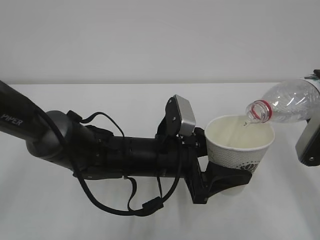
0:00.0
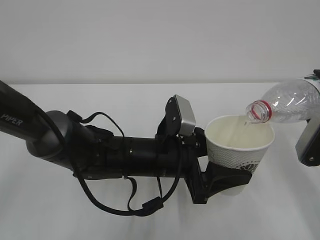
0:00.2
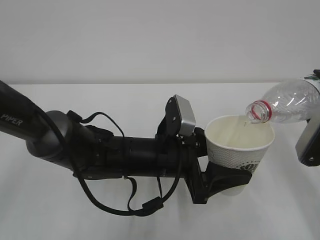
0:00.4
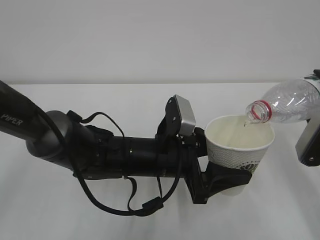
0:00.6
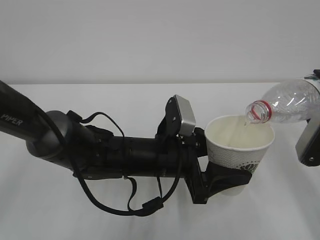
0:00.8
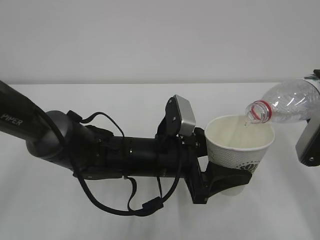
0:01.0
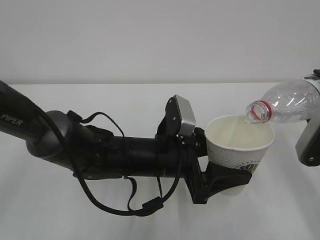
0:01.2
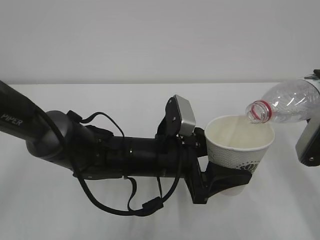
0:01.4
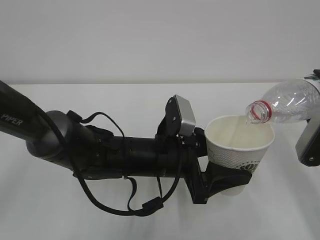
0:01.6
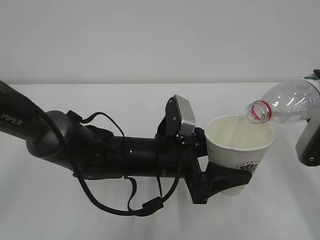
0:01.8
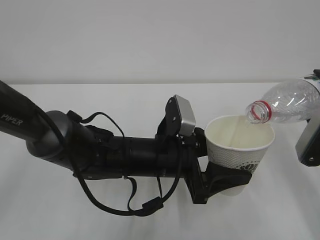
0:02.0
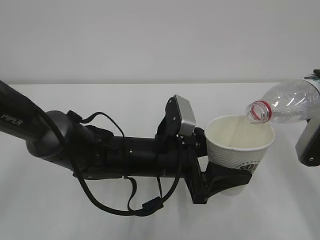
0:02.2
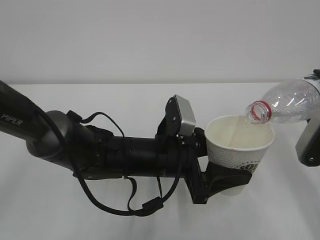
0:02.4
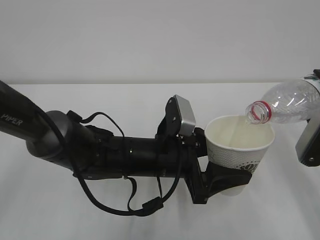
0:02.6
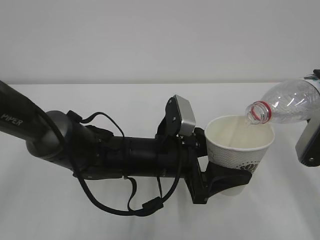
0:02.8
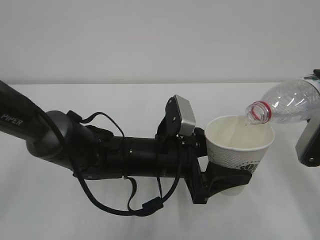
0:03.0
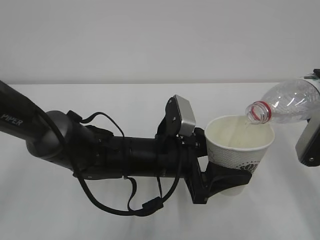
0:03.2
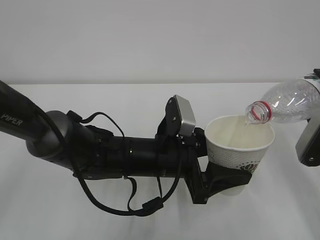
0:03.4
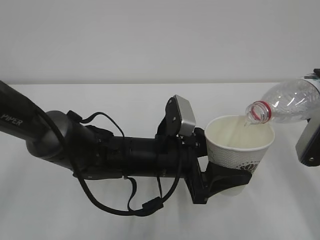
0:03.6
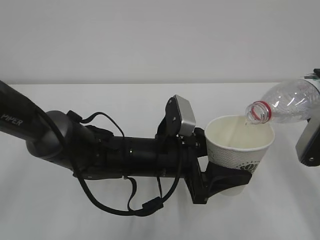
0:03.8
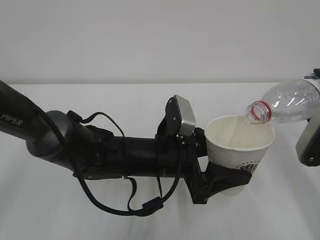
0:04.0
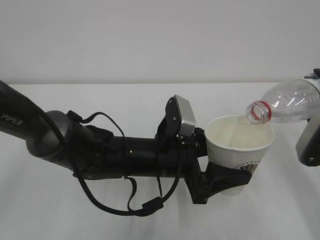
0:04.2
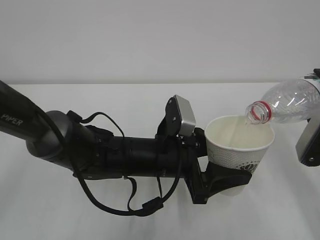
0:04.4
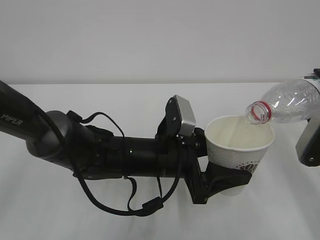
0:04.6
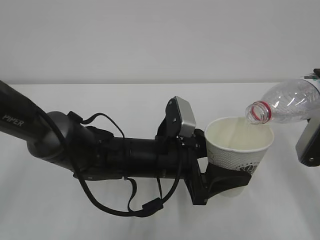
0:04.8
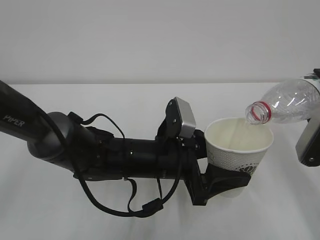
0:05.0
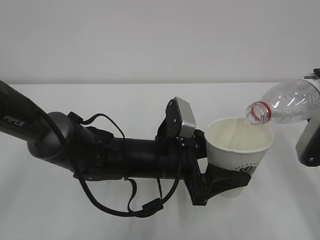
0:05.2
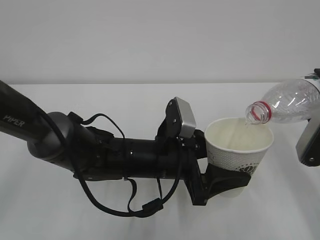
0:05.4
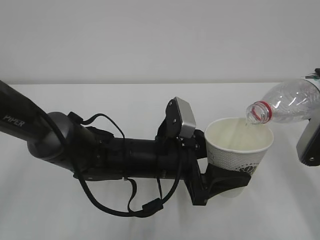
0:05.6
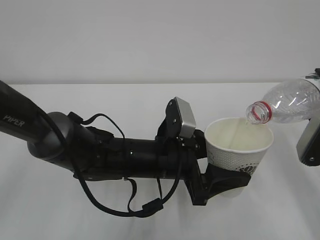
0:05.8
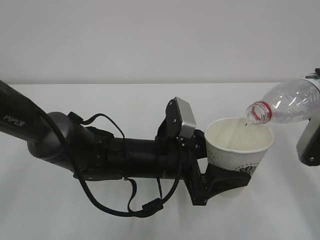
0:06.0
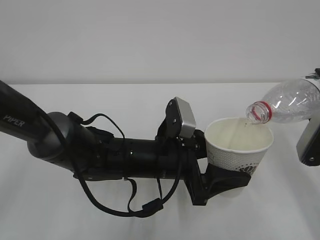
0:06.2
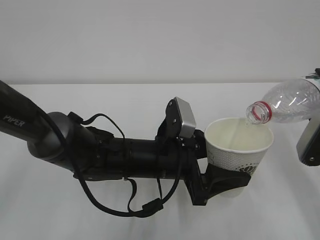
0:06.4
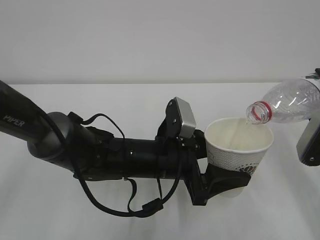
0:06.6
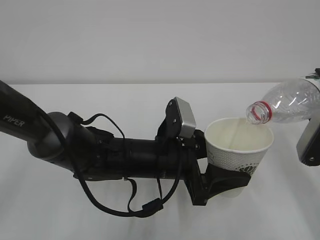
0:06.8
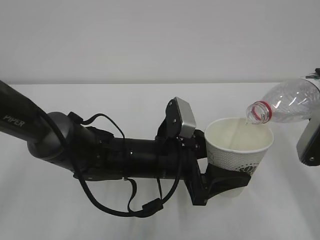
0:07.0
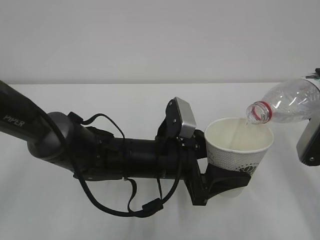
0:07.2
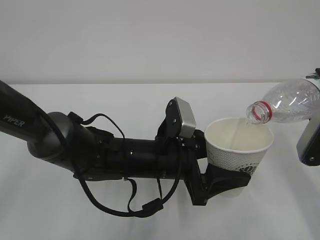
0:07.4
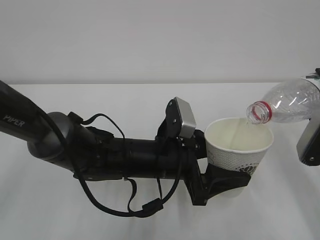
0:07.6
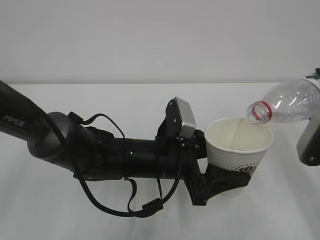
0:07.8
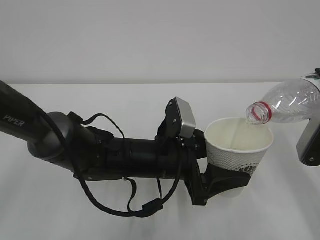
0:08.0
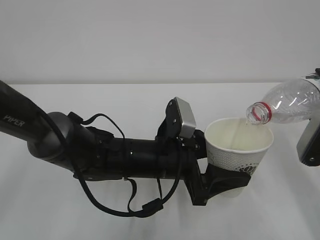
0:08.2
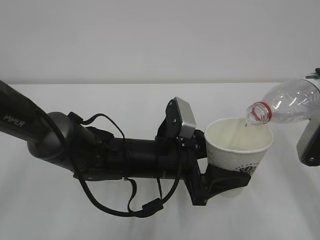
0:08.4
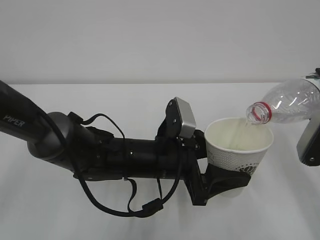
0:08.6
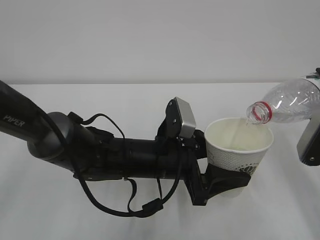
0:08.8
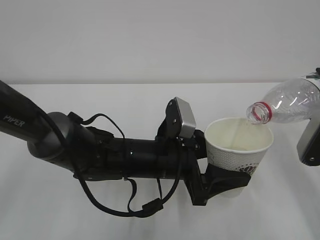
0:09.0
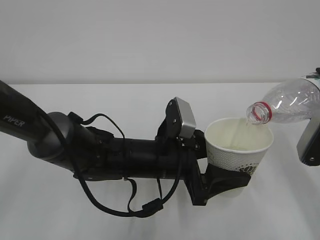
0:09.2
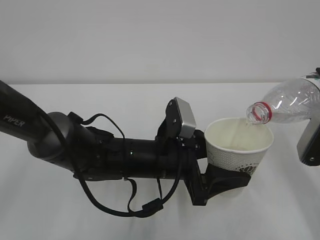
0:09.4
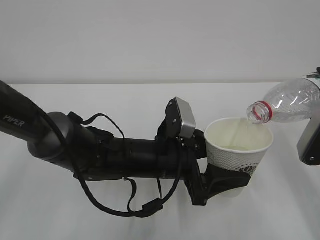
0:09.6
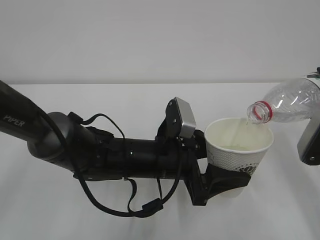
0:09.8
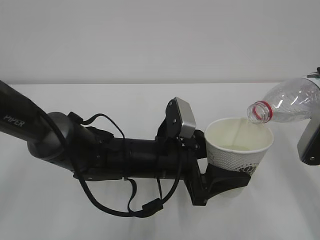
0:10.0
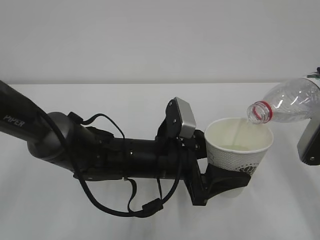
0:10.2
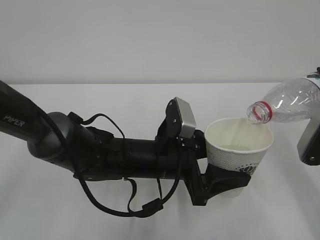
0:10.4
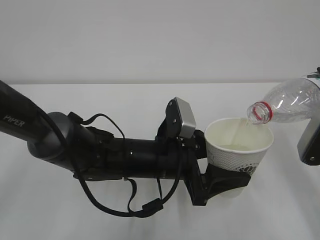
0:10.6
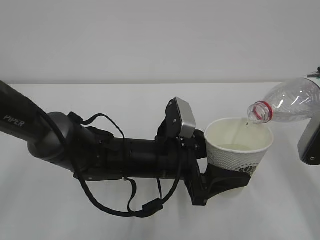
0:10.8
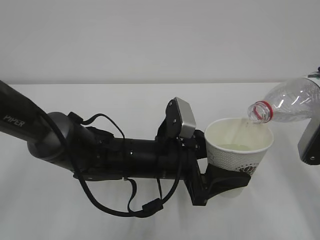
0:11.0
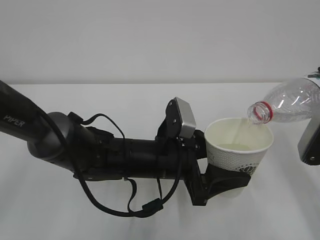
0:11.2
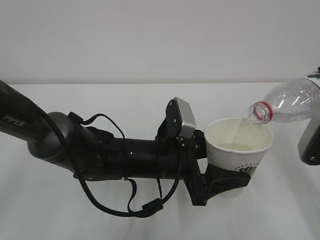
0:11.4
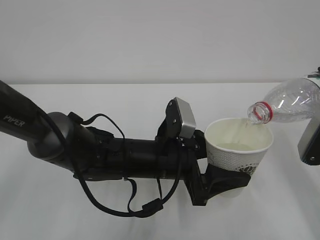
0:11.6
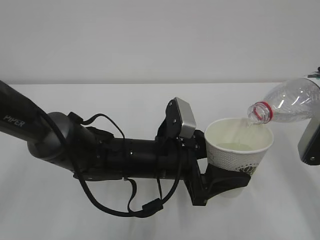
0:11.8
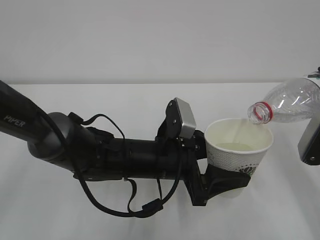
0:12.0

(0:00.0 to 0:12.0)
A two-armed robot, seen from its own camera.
0:00.0 - 0:10.4: Both grippers stay put.
0:10.4 - 0:12.0: Neither gripper changes place.

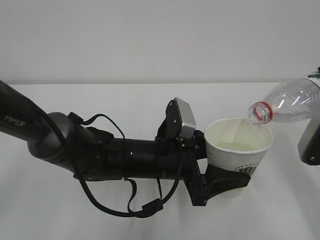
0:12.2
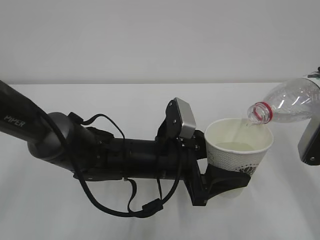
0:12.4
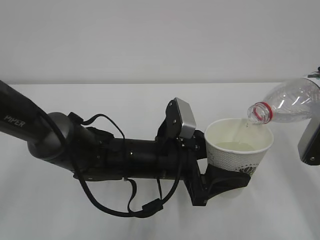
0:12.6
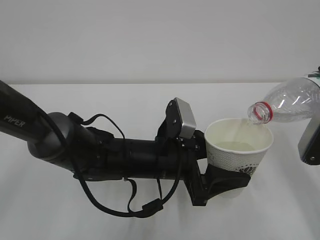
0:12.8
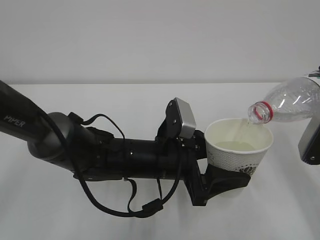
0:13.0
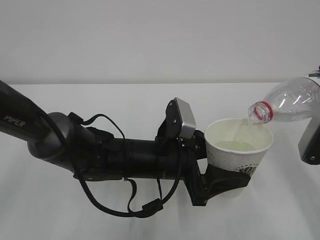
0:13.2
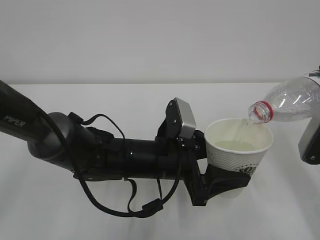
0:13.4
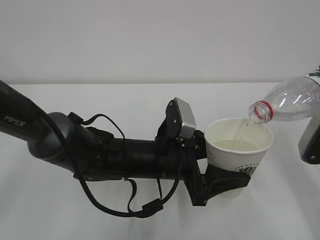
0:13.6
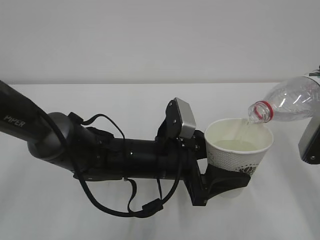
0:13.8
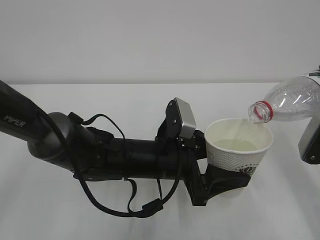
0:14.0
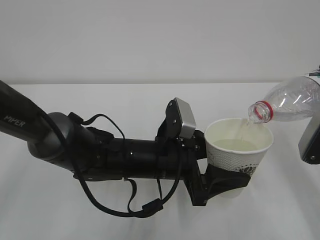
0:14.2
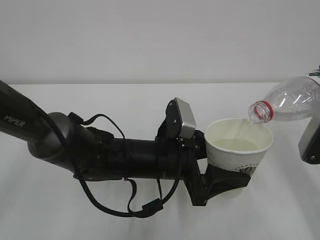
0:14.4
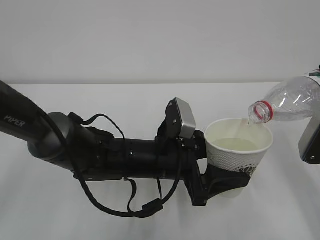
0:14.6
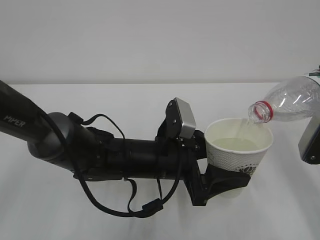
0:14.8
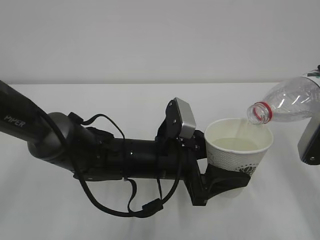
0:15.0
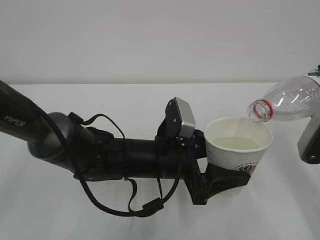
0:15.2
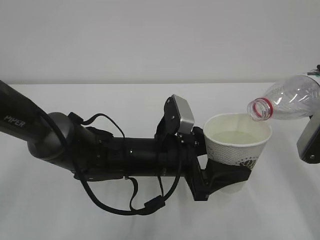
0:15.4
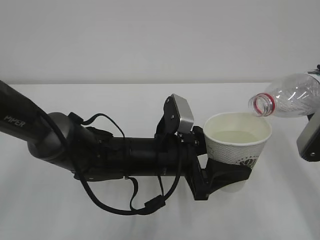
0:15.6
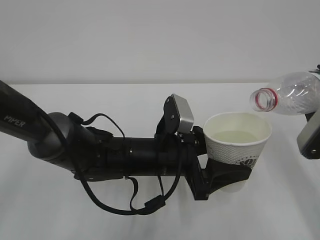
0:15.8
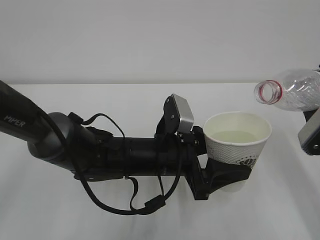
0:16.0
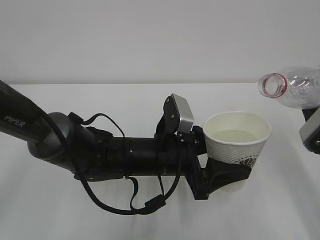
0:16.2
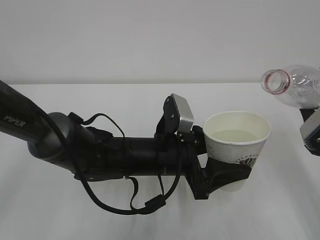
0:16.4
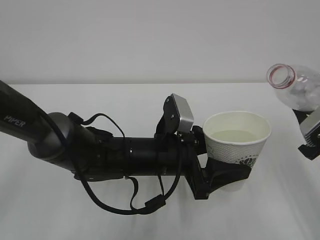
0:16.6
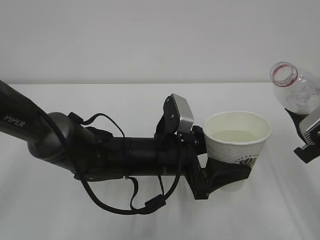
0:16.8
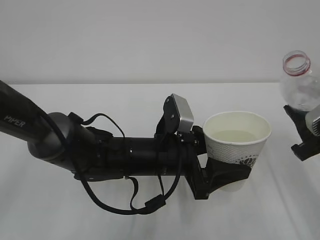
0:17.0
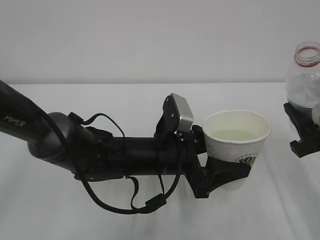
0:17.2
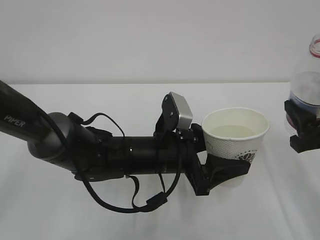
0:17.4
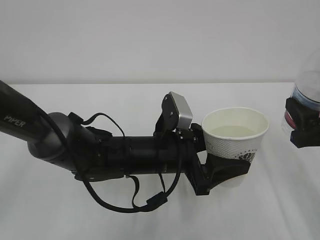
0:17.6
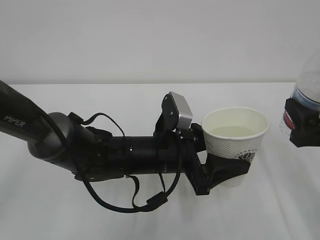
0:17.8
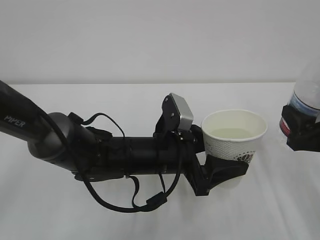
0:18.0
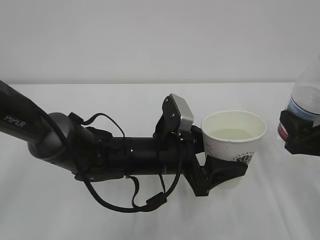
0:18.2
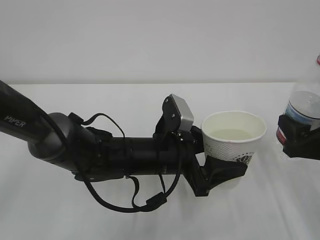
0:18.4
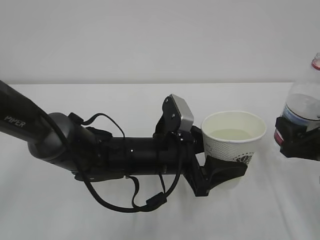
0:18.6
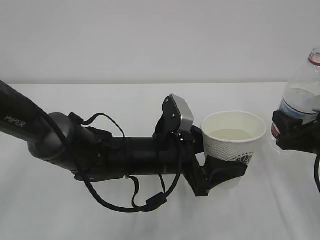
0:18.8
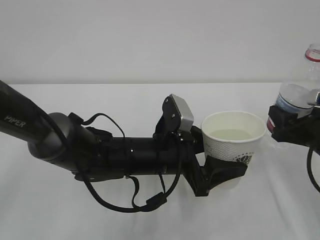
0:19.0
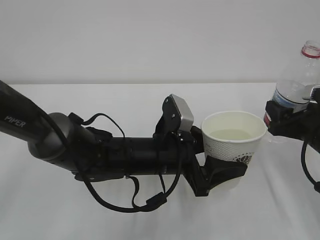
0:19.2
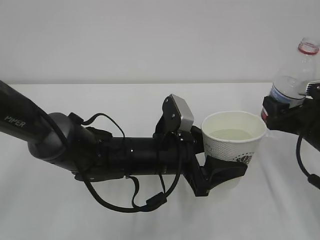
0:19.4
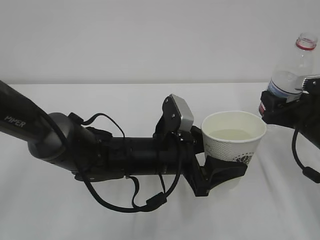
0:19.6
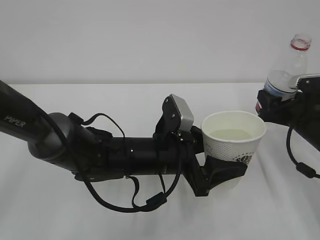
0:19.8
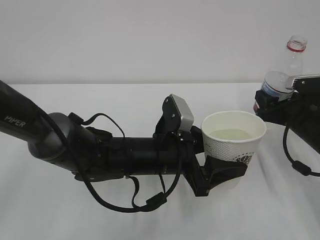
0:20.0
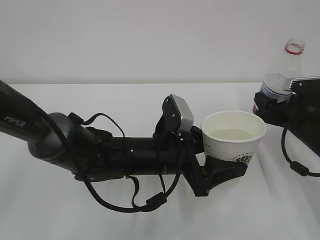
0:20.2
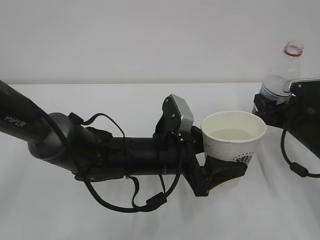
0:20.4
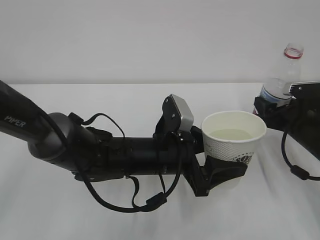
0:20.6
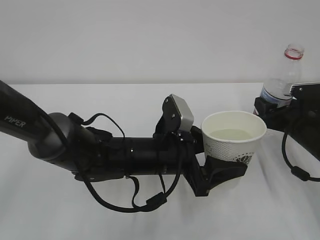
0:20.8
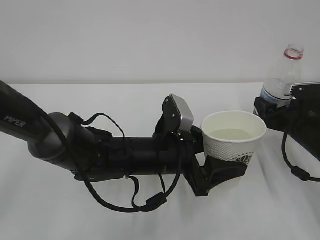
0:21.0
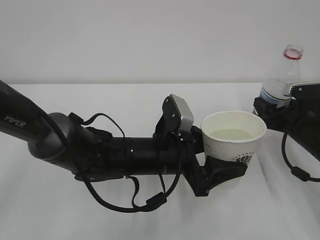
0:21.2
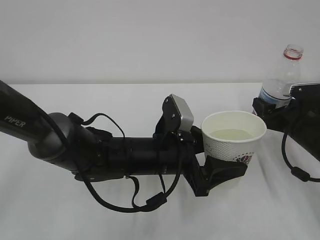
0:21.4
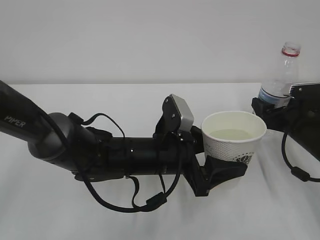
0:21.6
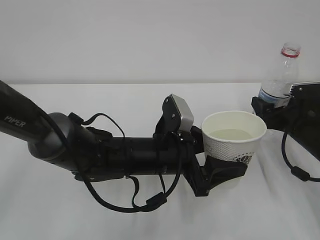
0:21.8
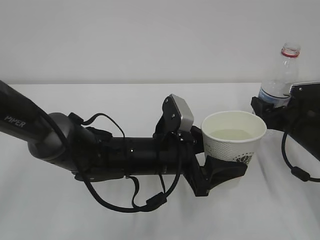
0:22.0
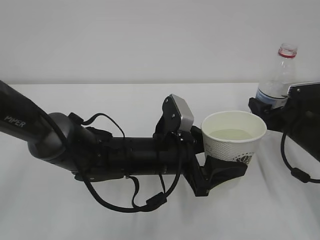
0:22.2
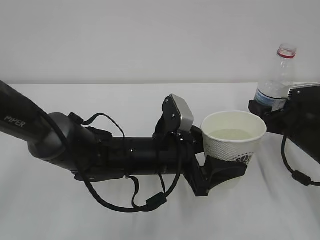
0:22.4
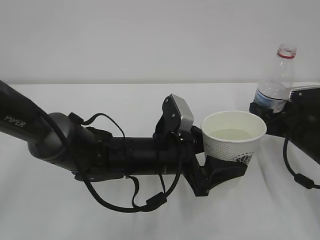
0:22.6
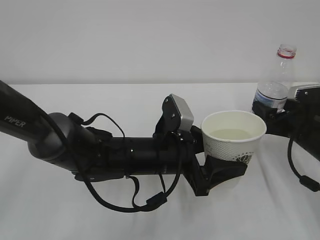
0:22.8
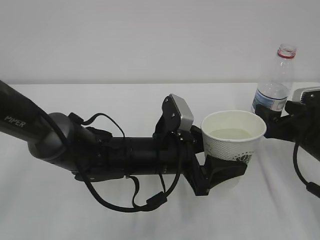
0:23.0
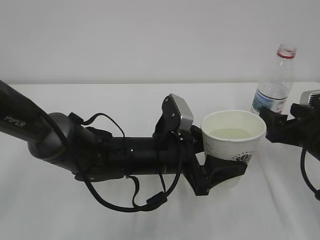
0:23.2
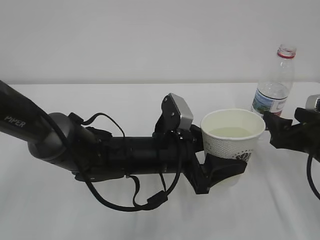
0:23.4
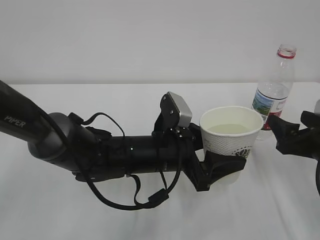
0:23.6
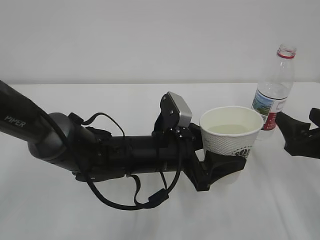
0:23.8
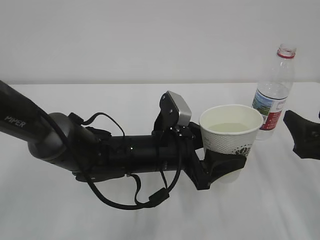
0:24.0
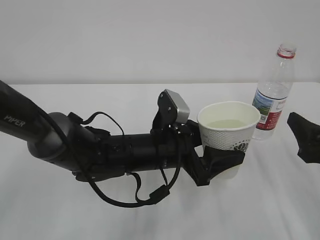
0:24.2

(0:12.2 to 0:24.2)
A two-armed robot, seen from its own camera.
0:12.2 - 0:15.2: Both grippers stay about where they are.
0:18.2 - 0:19.8: The right gripper goes approximately 10 cm forward.
0:19.8 - 0:21.2: The grippers stay close to where they were, moving slightly.
0:21.2 - 0:22.6: The right gripper opens up.
0:22.6 - 0:24.2: The right gripper goes roughly 15 cm backward and upward.
